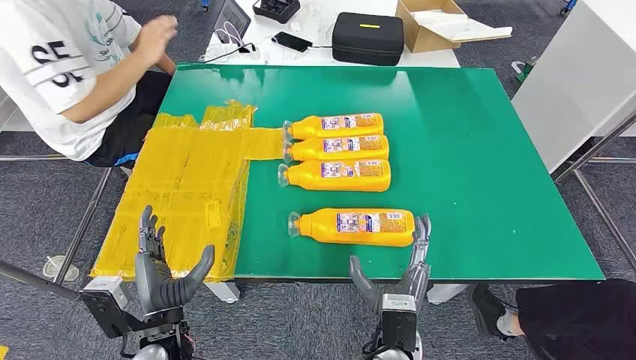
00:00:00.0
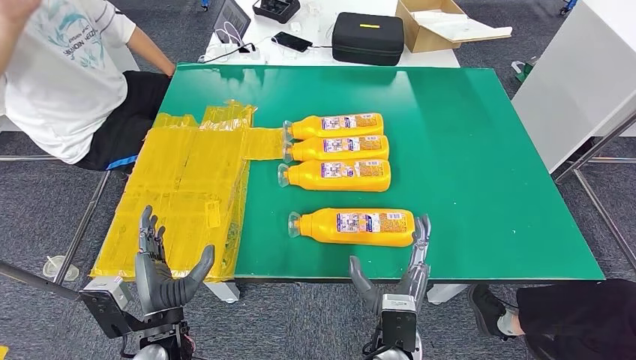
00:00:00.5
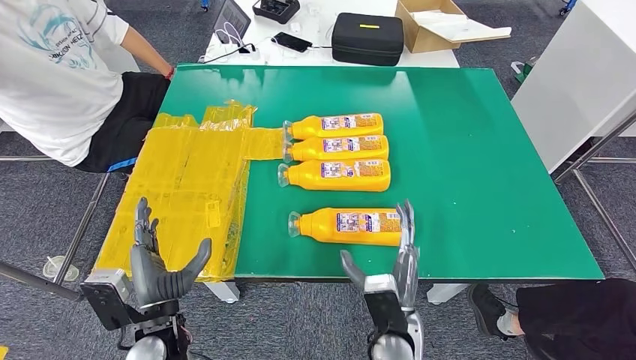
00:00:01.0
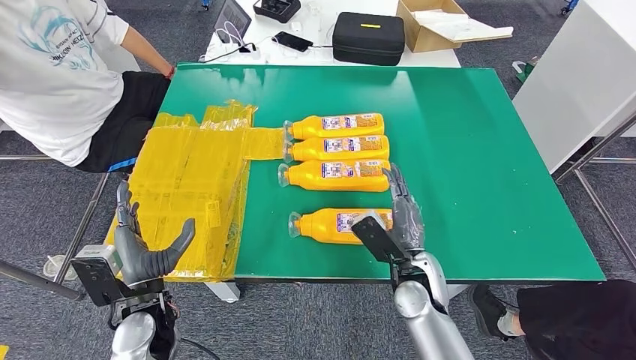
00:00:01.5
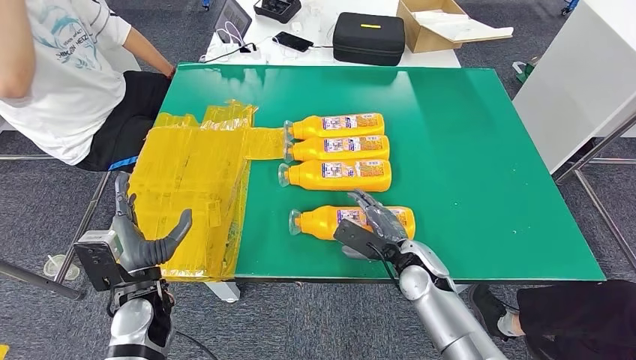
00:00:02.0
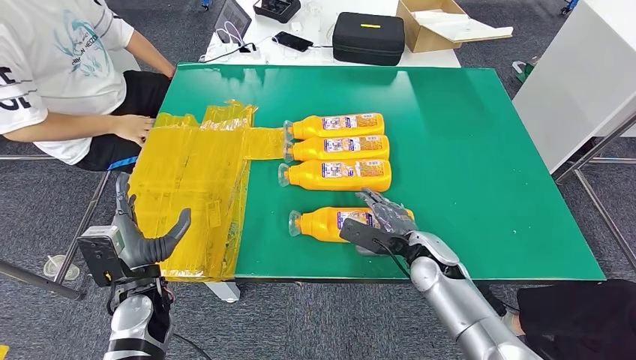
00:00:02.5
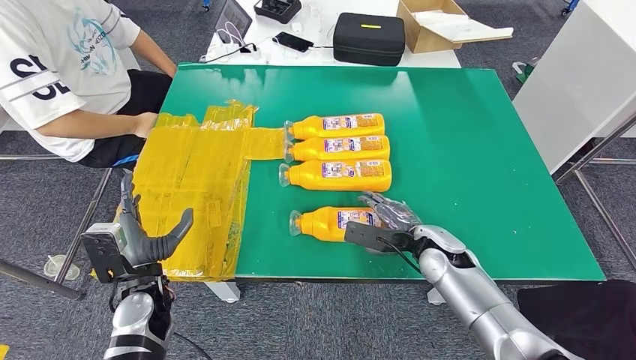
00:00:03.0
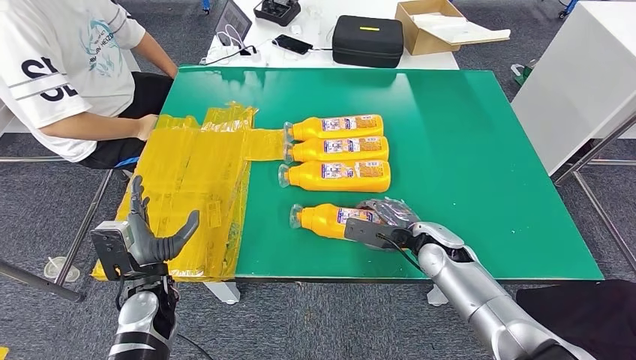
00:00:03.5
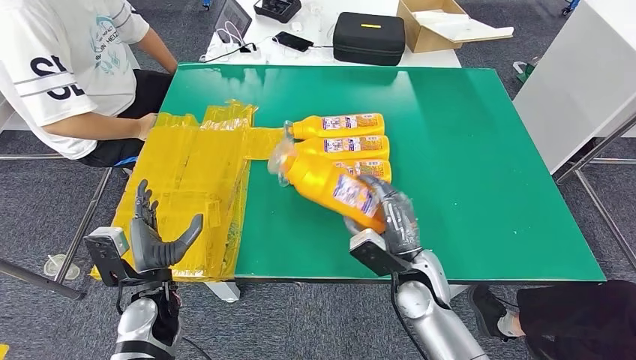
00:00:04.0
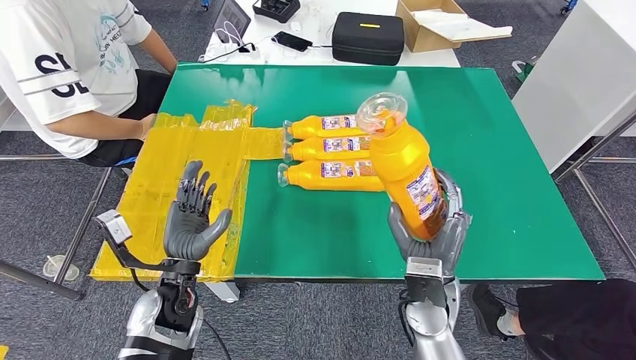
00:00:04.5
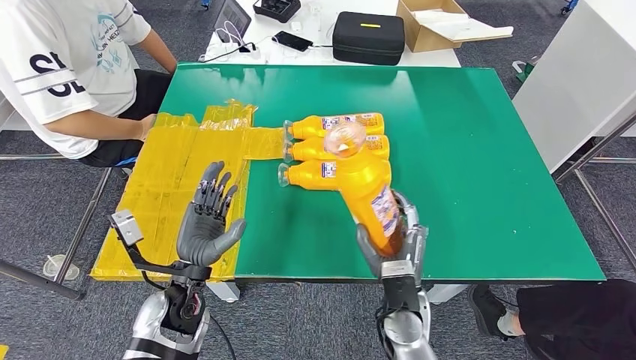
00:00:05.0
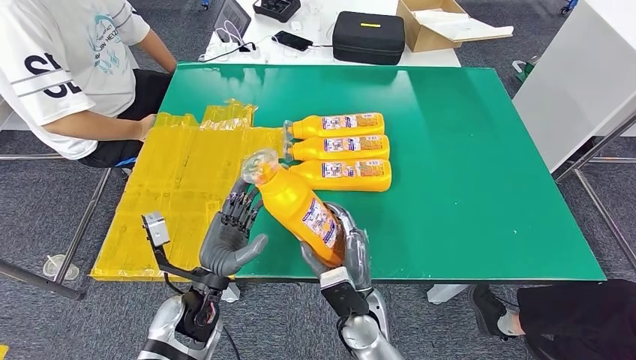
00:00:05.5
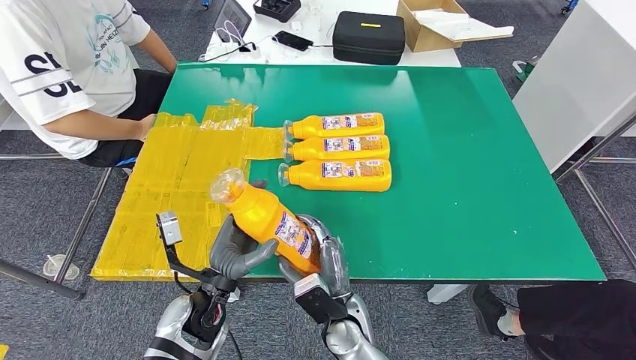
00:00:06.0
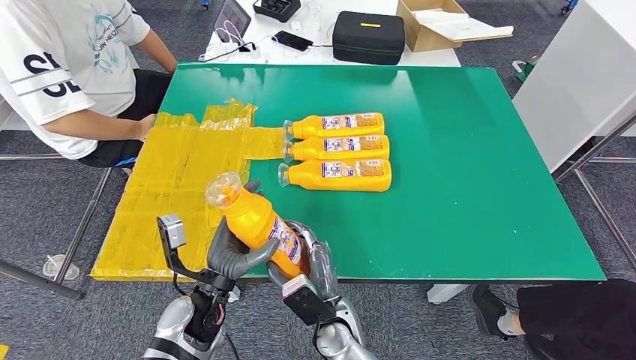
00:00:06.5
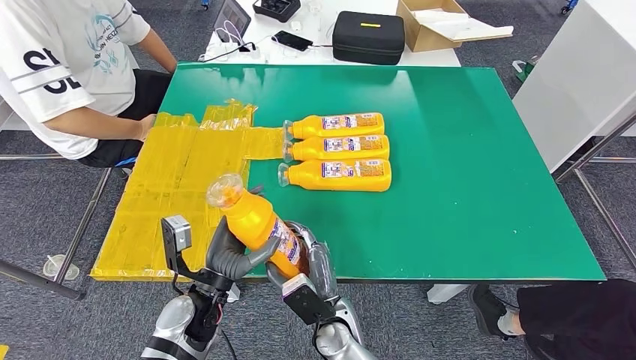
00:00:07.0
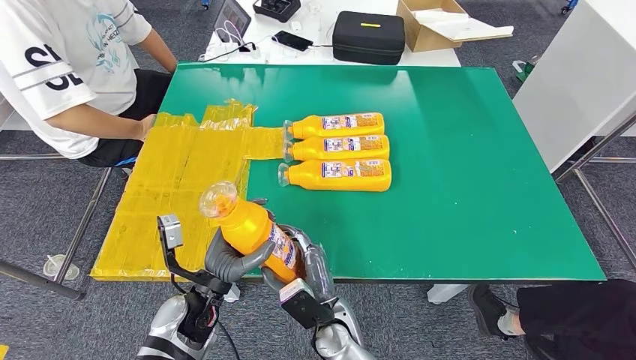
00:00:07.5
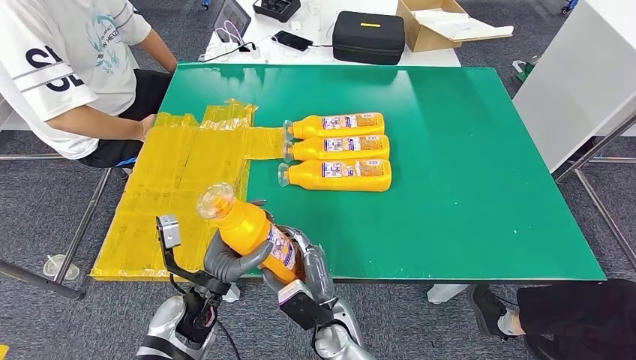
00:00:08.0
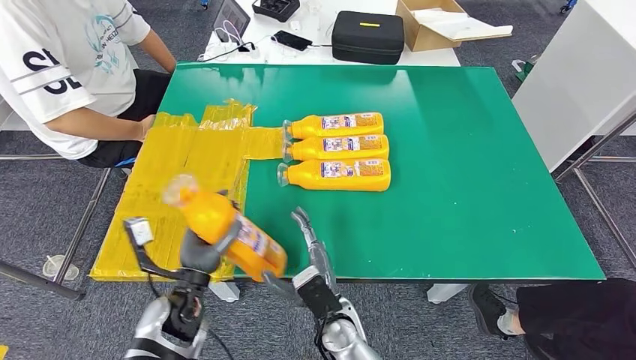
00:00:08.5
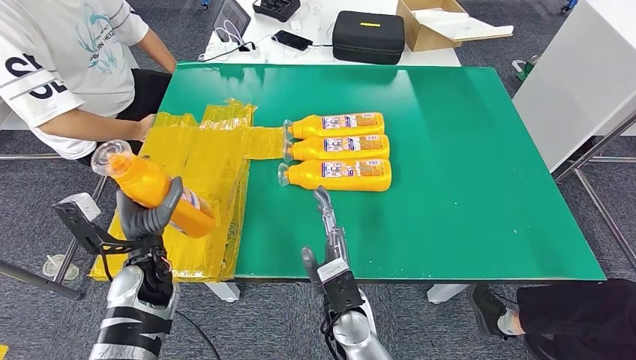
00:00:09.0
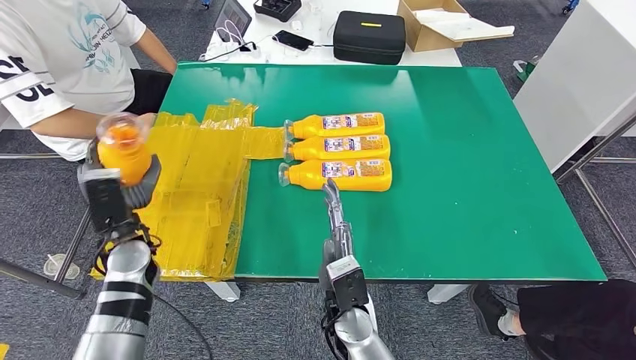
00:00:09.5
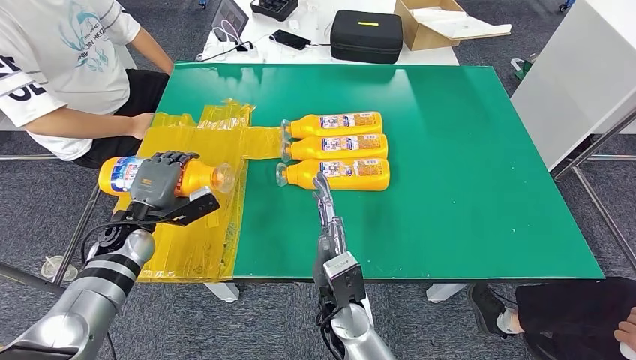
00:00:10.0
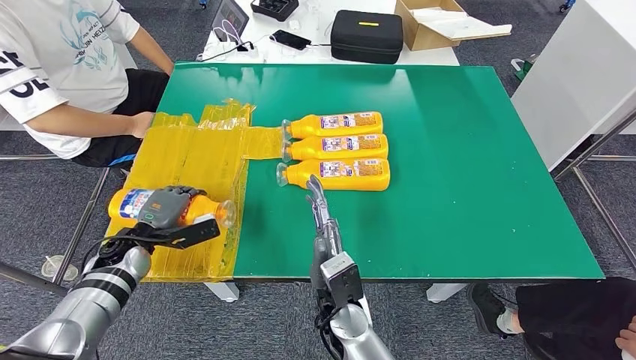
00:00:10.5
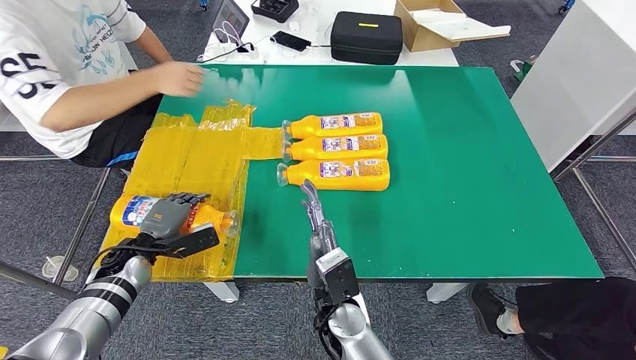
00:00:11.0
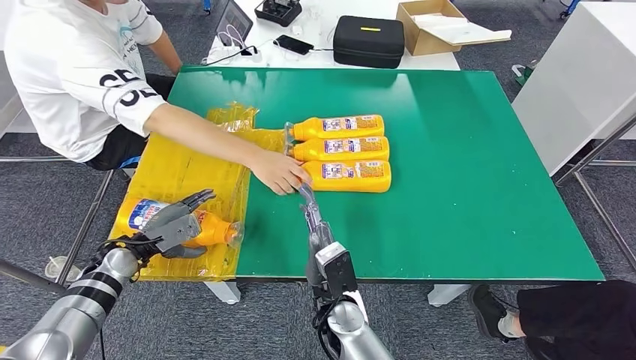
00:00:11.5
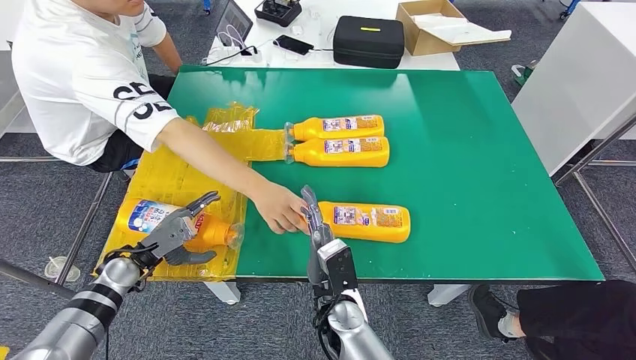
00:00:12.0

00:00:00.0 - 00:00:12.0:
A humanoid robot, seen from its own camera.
Step, 00:00:00.0 - 00:00:04.0: Take the fast-moving consumer goods bottle from the table.
Step, 00:00:05.5 - 00:00:11.0: Flip the fast-moving consumer goods bottle to the front side.
00:00:04.0 - 00:00:06.0: The right hand heads to the left and backward, covering approximately 15 cm, while the left hand travels to the right by approximately 10 cm.
00:00:06.0 - 00:00:08.0: The hands move only a little.

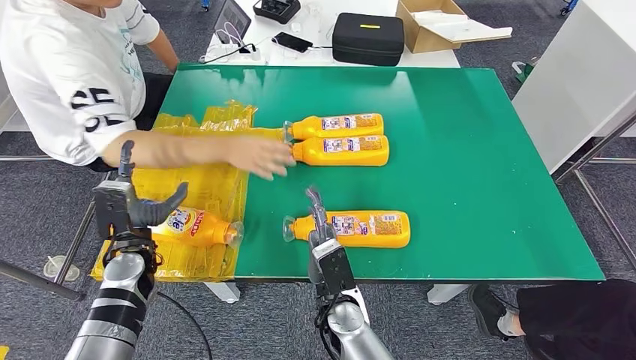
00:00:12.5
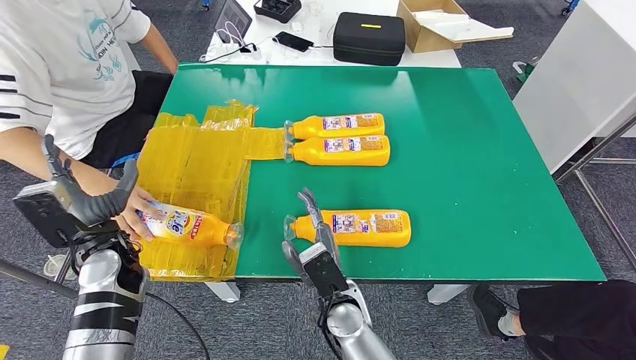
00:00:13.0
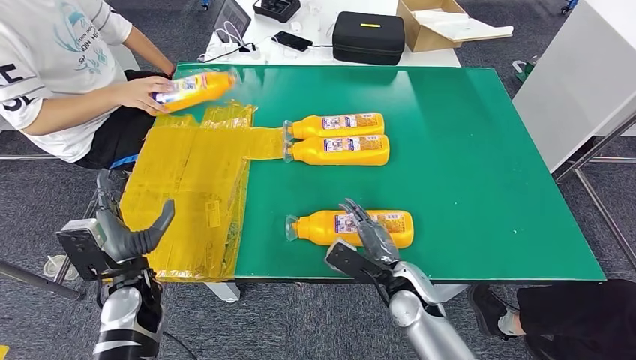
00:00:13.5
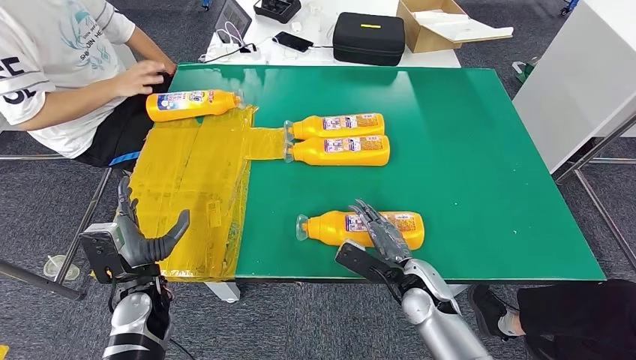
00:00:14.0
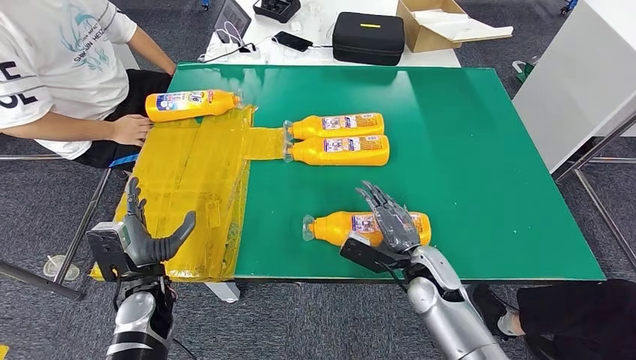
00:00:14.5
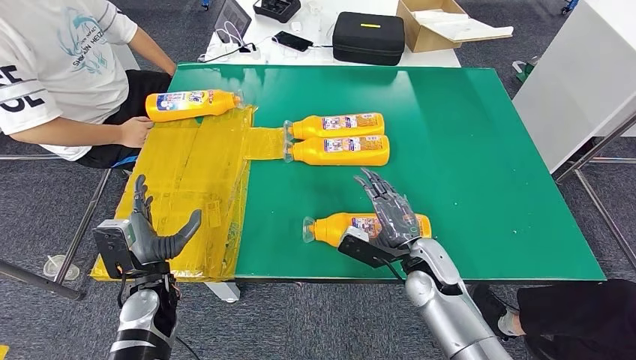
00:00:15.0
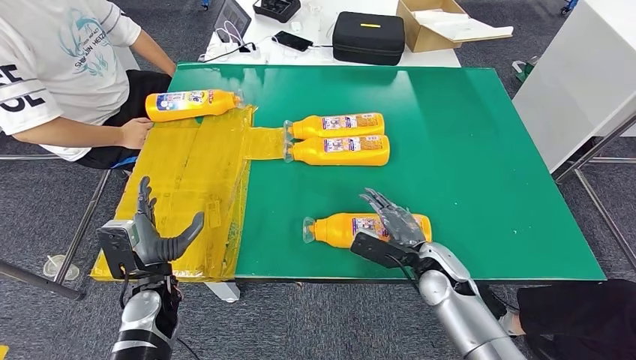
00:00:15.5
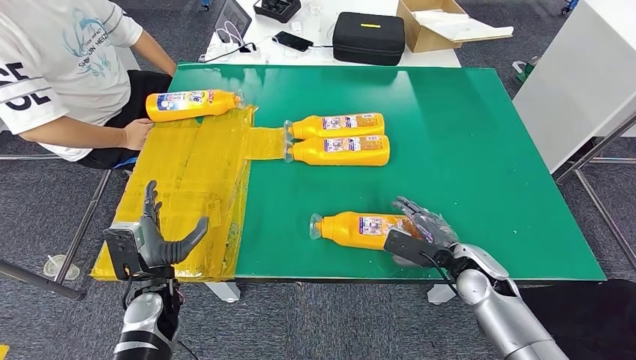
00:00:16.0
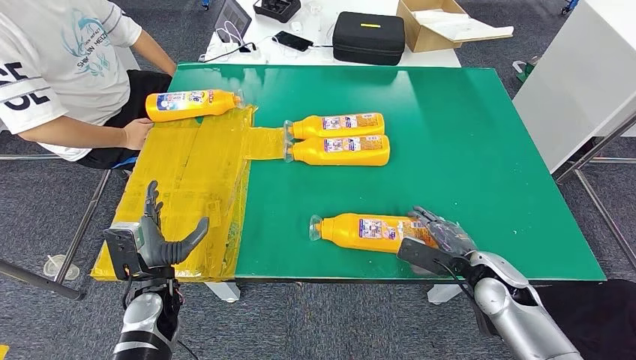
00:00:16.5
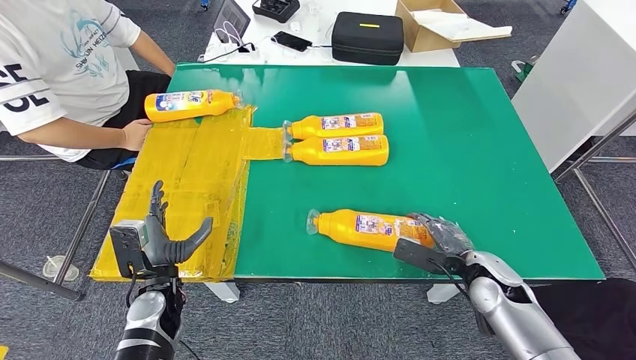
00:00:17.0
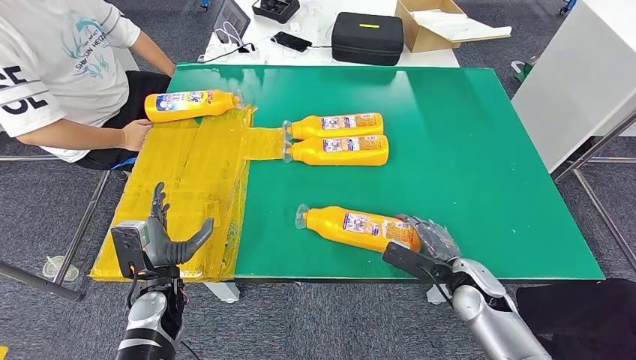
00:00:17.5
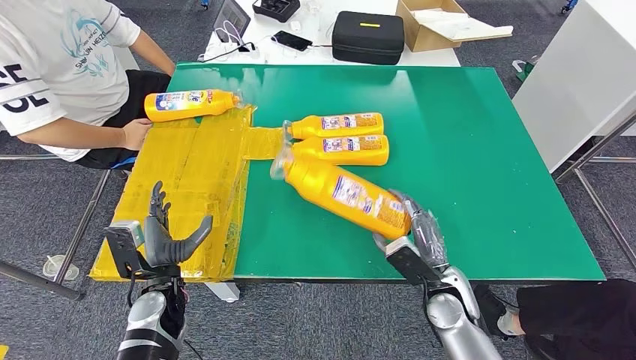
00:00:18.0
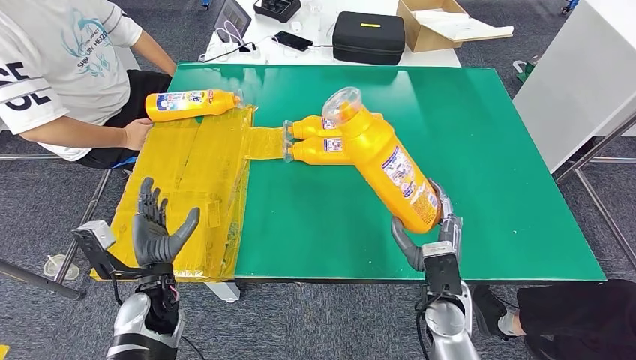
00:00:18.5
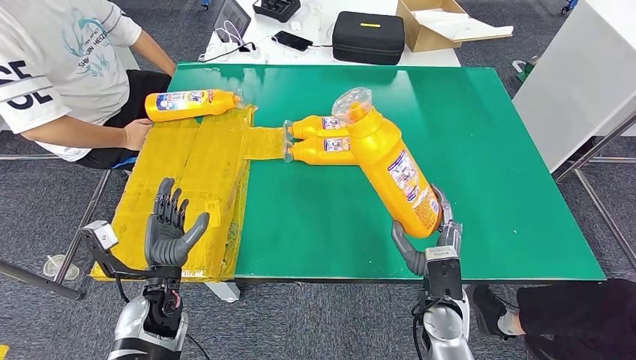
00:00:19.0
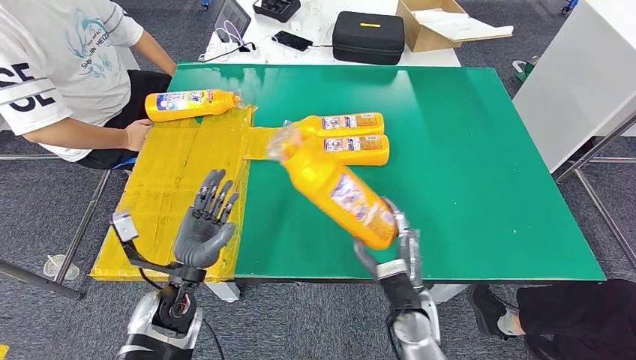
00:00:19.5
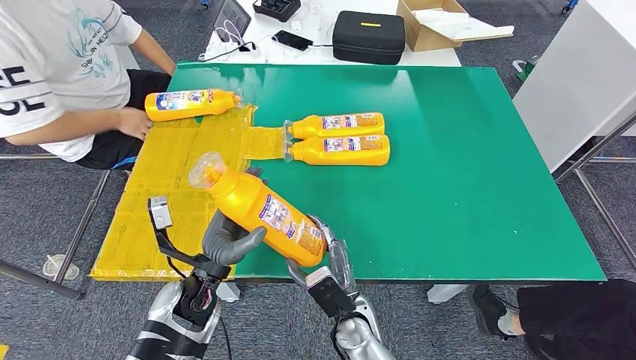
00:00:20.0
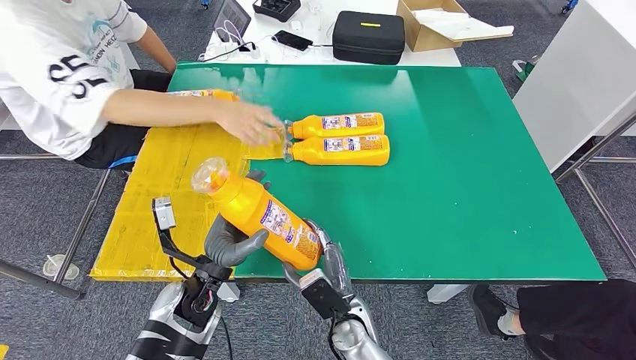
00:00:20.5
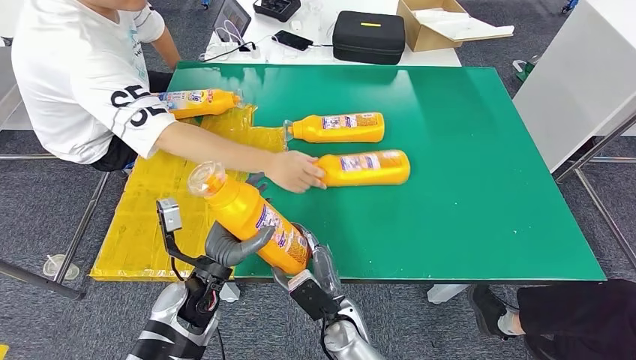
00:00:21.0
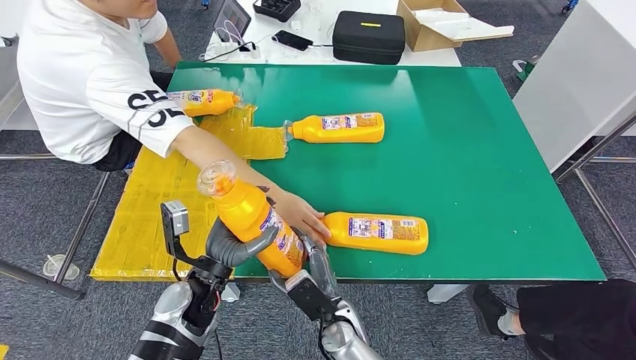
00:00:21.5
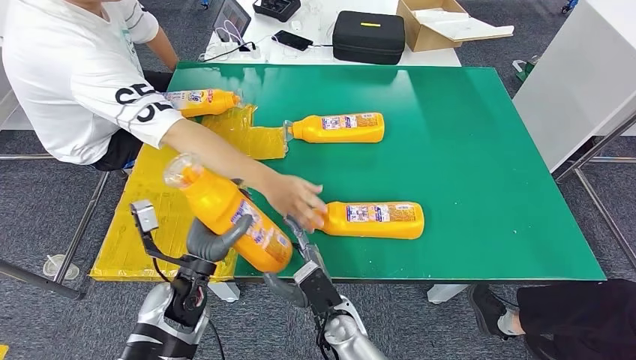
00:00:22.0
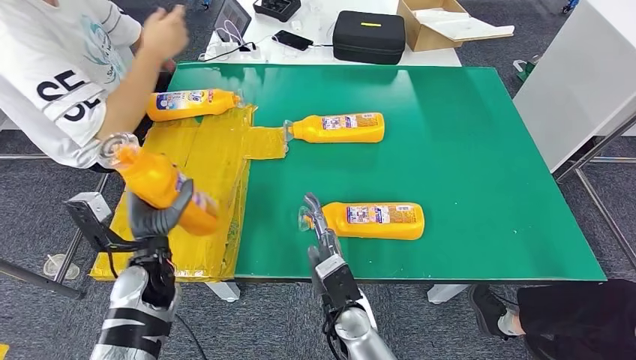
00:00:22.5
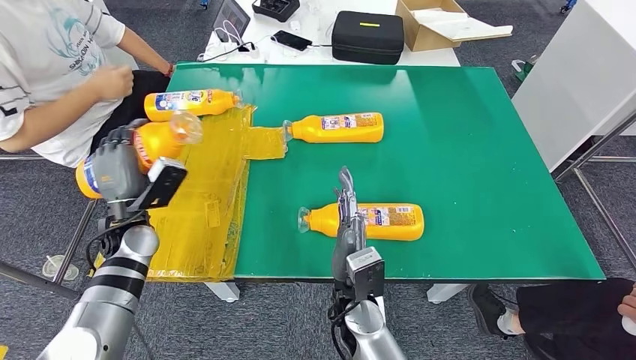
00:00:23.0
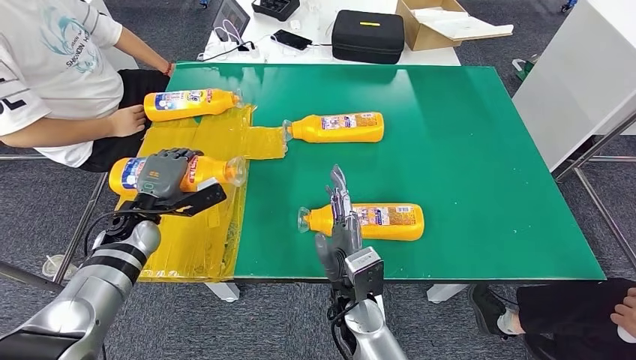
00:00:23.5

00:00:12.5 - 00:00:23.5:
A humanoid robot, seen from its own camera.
Step, 00:00:12.5 - 00:00:19.5: Pick up the fast-moving consumer goods bottle from the table.
00:00:14.5 - 00:00:16.0: The right hand goes approximately 10 cm to the right.
00:00:16.0 - 00:00:18.0: The right hand travels to the left by about 5 cm.
00:00:18.0 - 00:00:20.0: The right hand heads to the left, covering roughly 15 cm, while the left hand heads to the right, covering approximately 5 cm.
